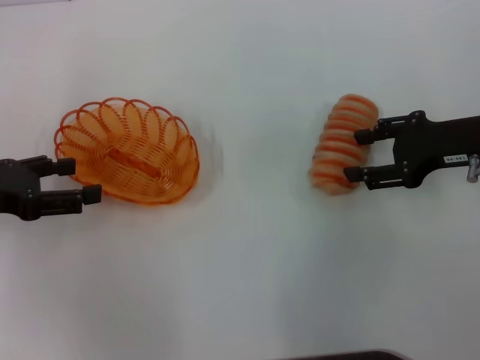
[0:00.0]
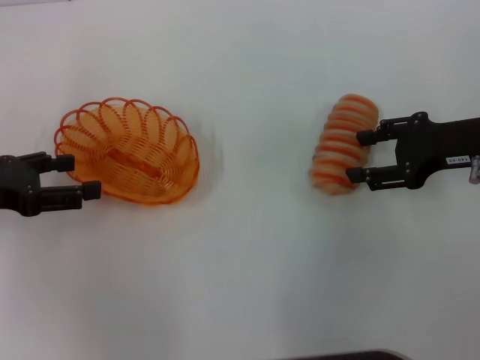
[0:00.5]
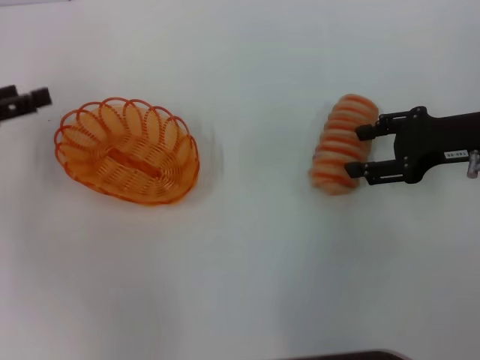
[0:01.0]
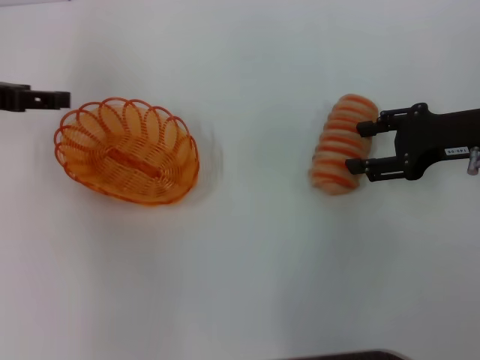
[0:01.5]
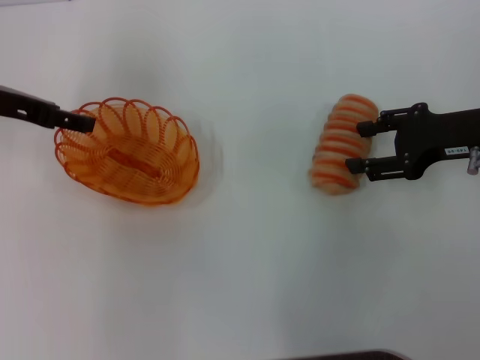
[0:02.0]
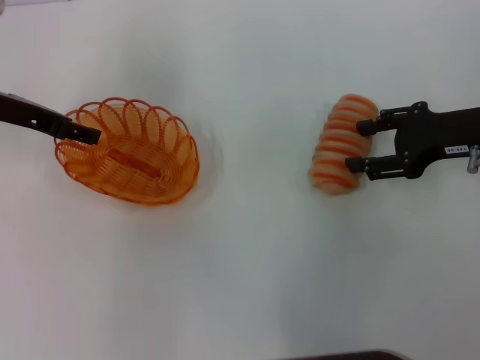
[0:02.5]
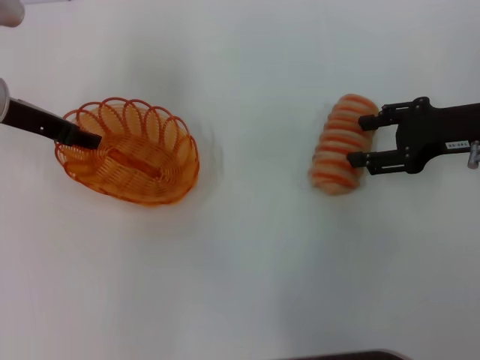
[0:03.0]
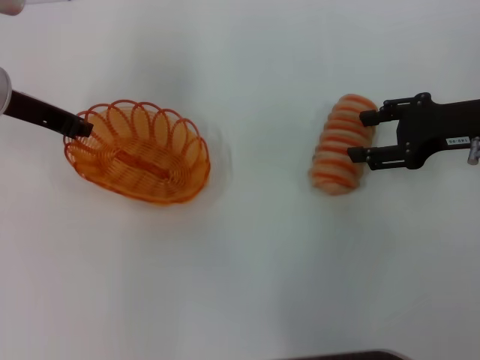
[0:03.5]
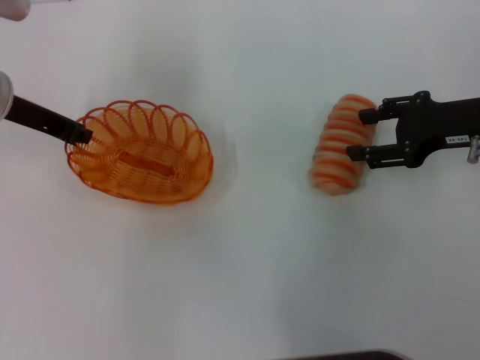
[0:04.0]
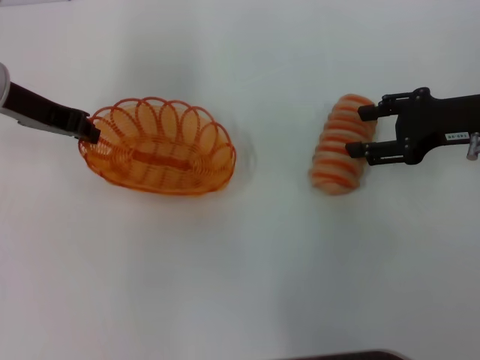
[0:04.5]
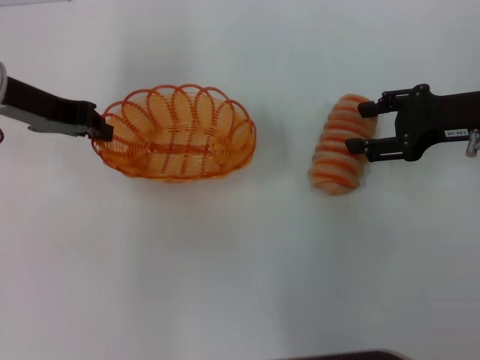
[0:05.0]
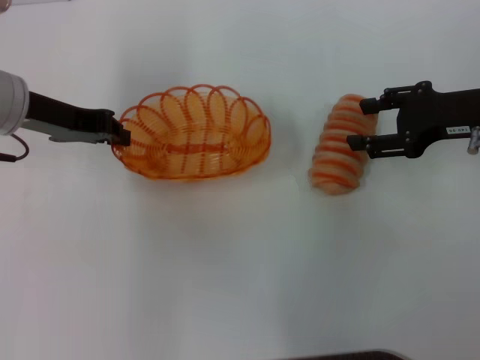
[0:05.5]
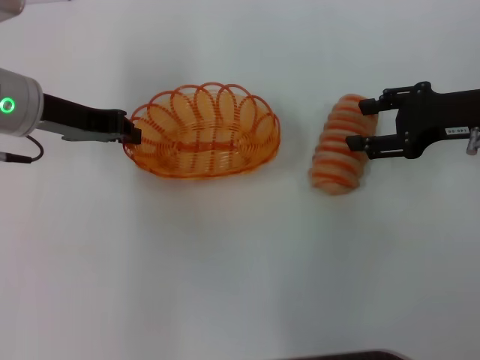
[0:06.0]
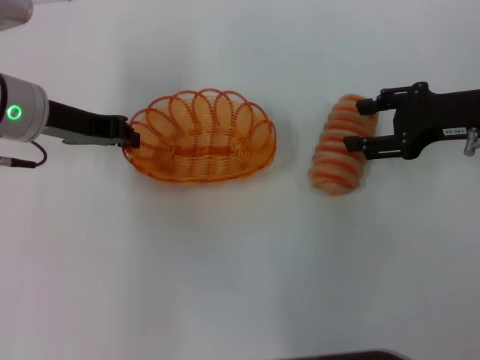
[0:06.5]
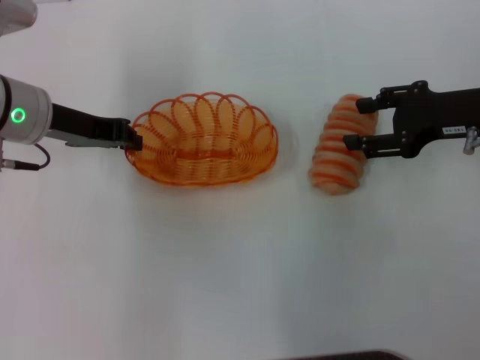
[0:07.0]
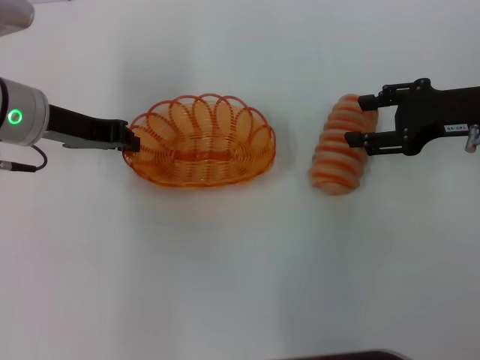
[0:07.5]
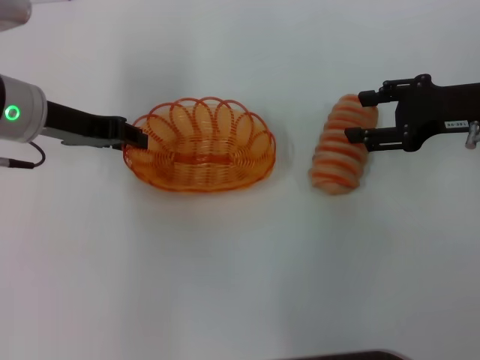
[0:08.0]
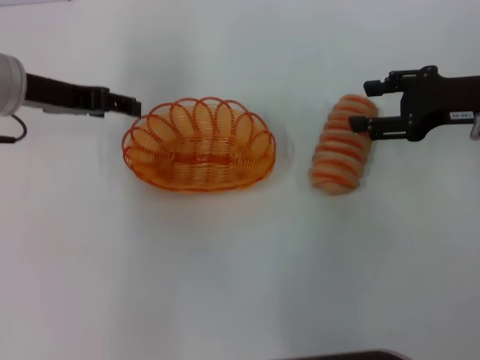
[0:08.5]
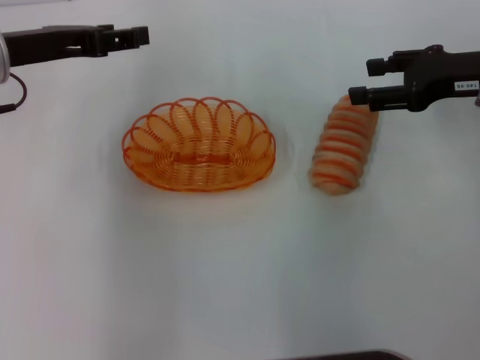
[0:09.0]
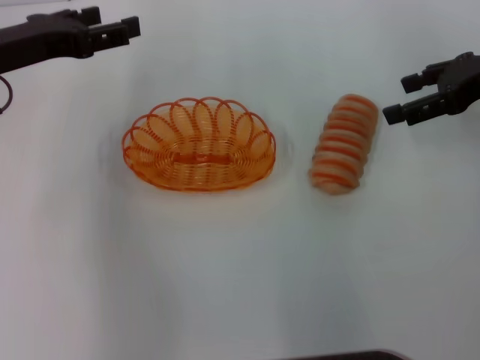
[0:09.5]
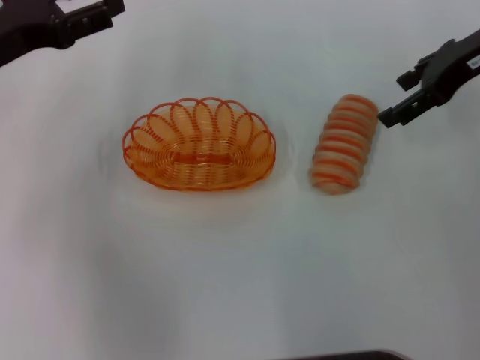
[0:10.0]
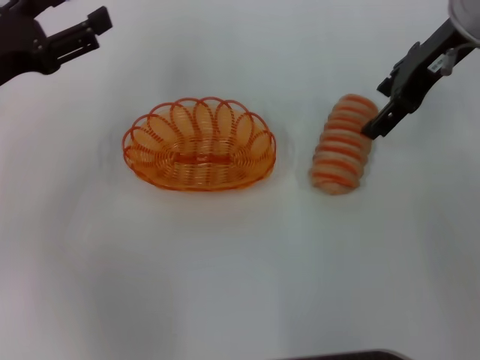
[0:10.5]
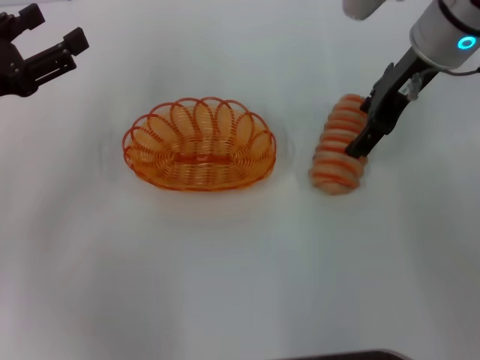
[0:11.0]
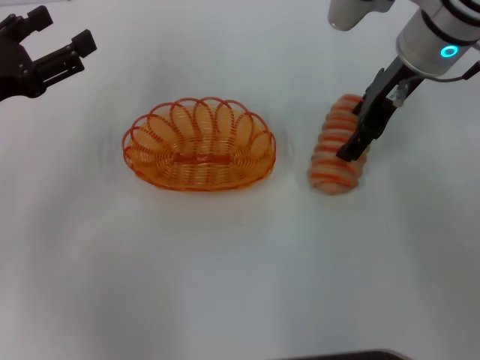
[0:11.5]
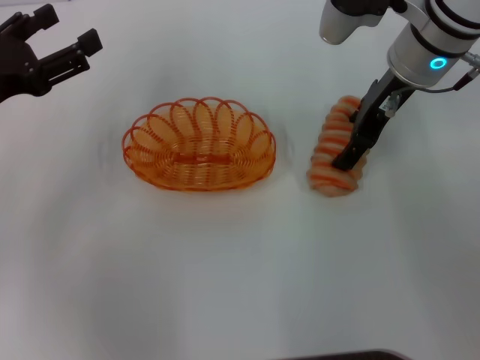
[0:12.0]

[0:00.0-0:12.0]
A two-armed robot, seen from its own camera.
Step, 0:00.0 to 0:05.0: Pick up the basket with the left gripper.
Step, 0:05.5 to 0:08.5: Place the basket in the center of view with the left gripper.
0:00.0 to 0:02.0: The left gripper moves forward, approximately 10 cm.
0:02.0 to 0:04.0: The left gripper closes its fingers.
0:06.0 to 0:08.0: Both grippers stay put.
0:08.0 to 0:10.0: The right gripper goes approximately 10 cm upward and forward, while the left gripper ends up approximately 5 cm from where it was, and opens up.
0:10.0 to 0:12.0: The right gripper moves to the left, roughly 10 cm, while the left gripper shifts by about 5 cm.

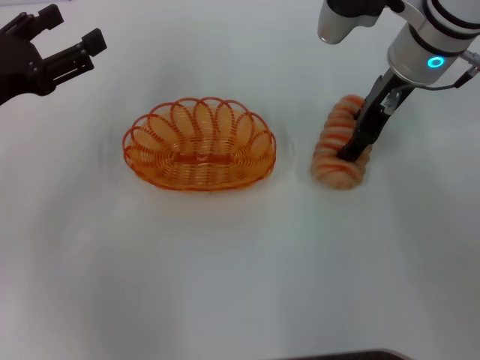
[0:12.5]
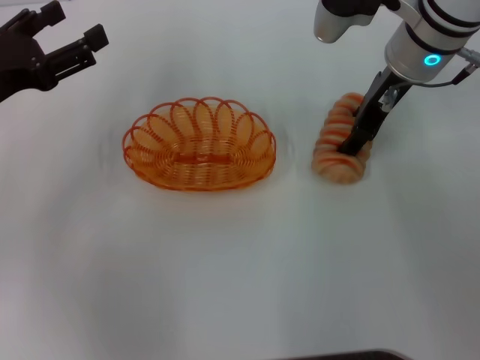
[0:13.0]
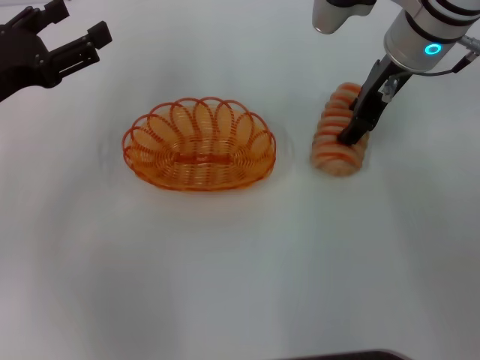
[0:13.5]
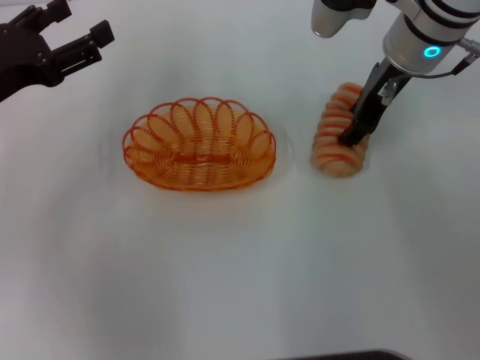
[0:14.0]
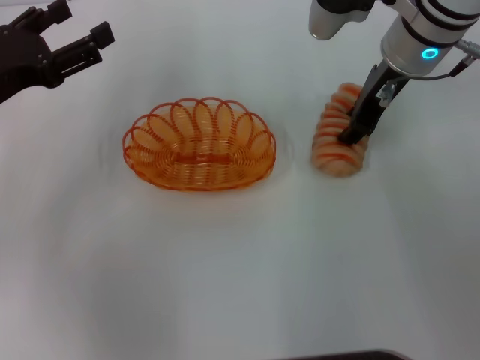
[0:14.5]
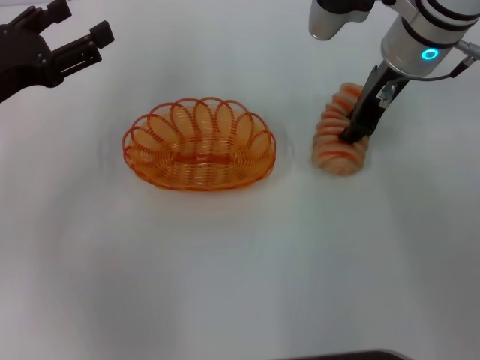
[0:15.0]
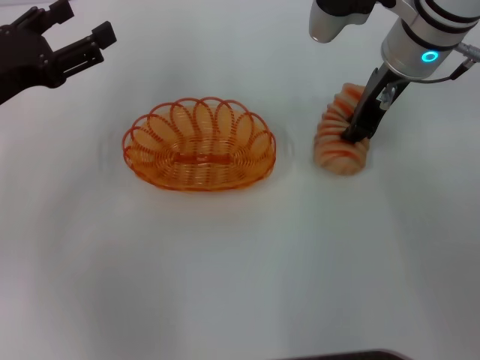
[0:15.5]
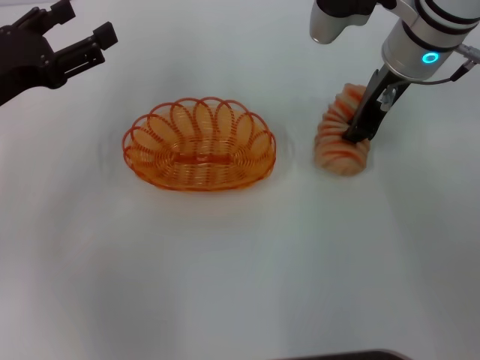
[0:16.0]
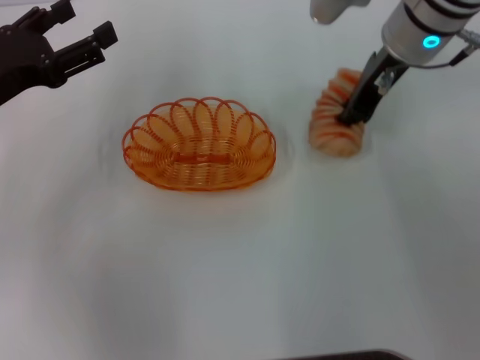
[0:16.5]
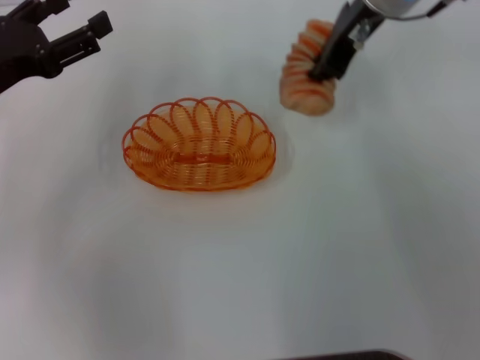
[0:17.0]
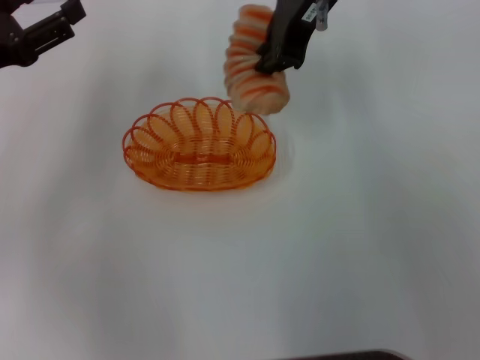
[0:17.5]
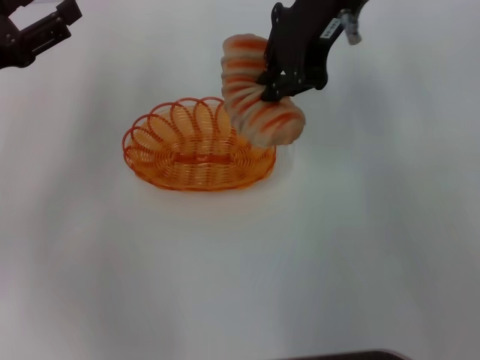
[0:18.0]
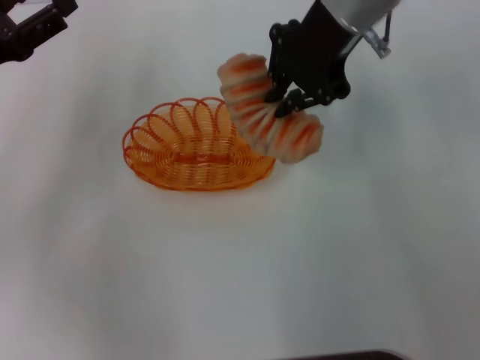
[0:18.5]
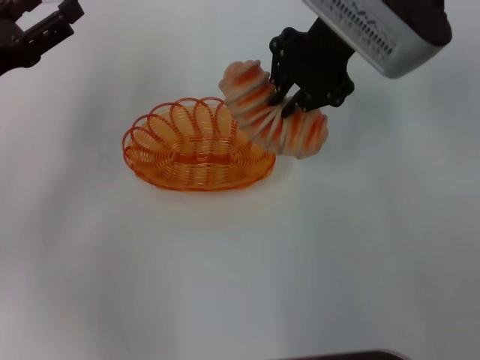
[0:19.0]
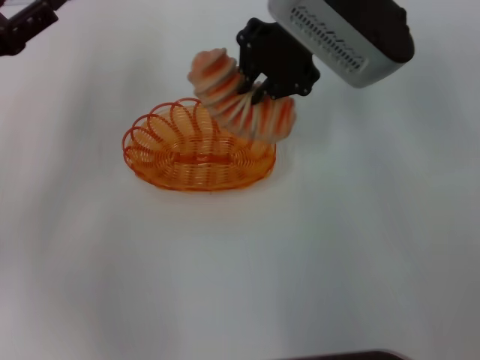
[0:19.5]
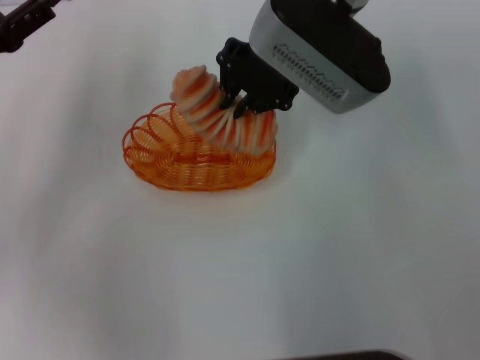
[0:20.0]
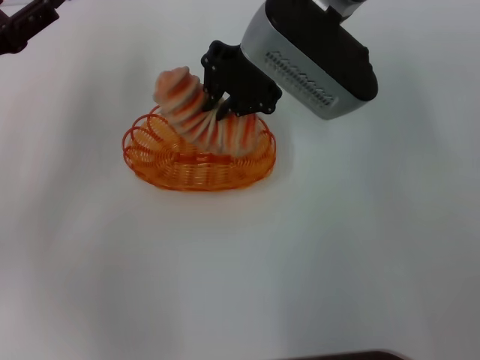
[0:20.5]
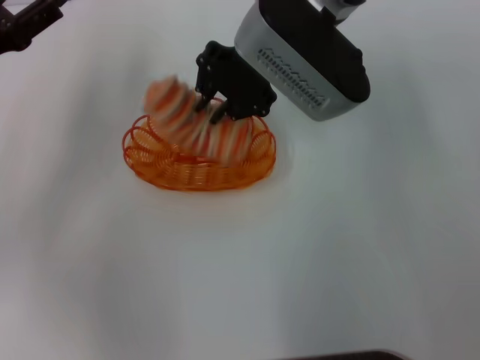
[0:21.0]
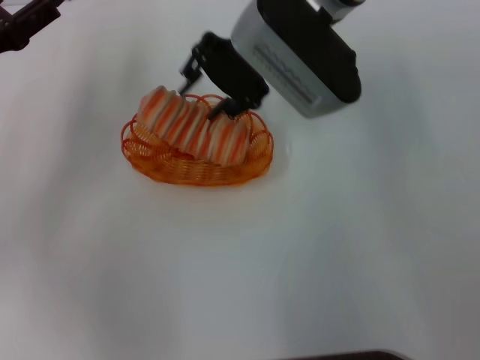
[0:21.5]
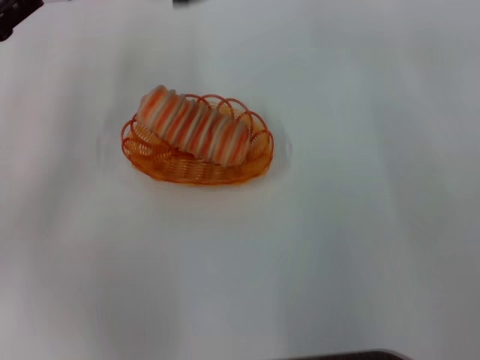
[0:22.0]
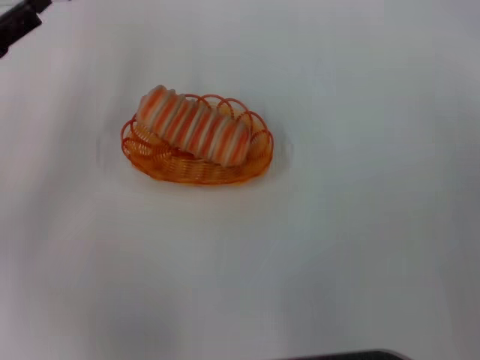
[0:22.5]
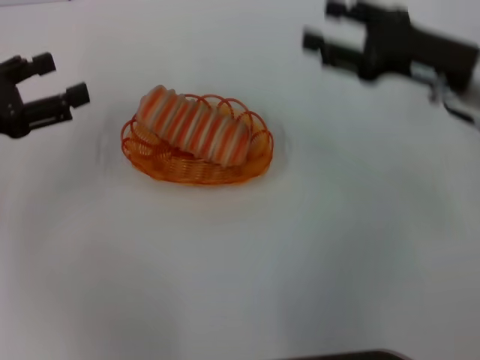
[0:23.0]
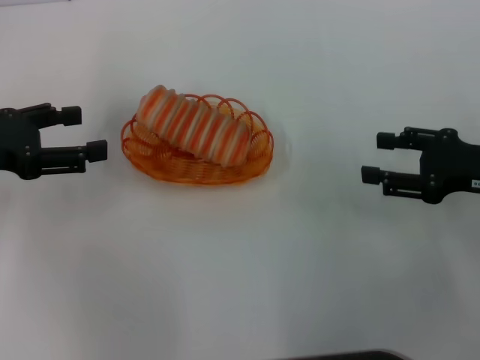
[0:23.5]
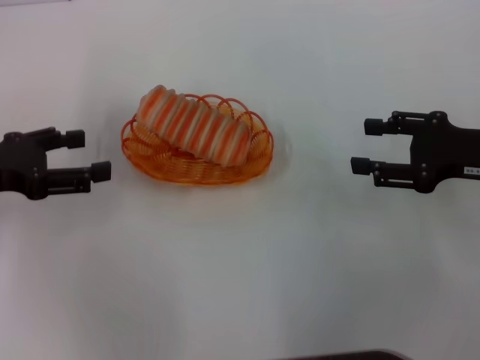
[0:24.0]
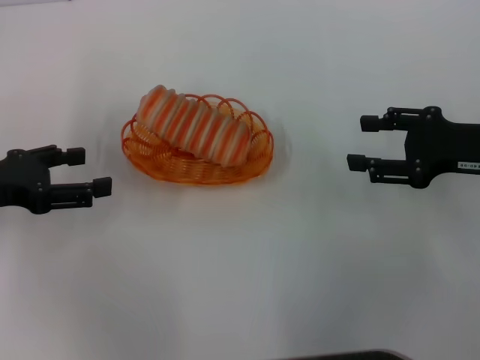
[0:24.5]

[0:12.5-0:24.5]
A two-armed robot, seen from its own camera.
Step, 0:12.5 to 0:17.0: Pick up the long bread with the right gripper.
Step, 0:17.5 to 0:21.5: Place the long bread into the basket with the right gripper.
0:12.5 to 0:14.5: The right gripper closes up.
0:14.5 to 0:16.5: The right gripper closes up.
0:16.5 to 0:18.5: The right gripper travels upward and to the left by some 10 cm.
0:18.5 to 0:20.5: The right gripper goes roughly 5 cm downward.
0:20.5 to 0:22.5: The right gripper moves to the right, roughly 15 cm, and opens up.
0:22.5 to 0:24.5: The right gripper goes roughly 20 cm backward, downward and to the right.

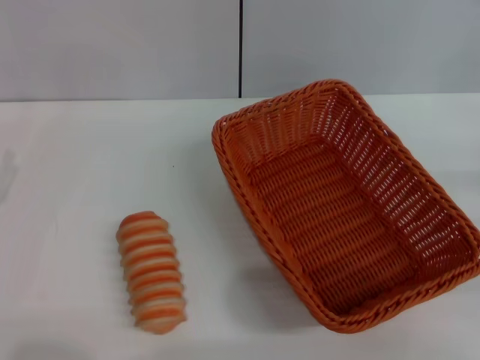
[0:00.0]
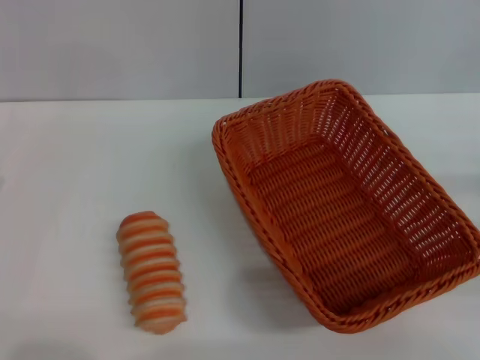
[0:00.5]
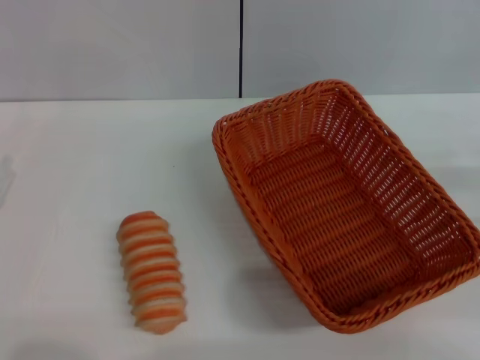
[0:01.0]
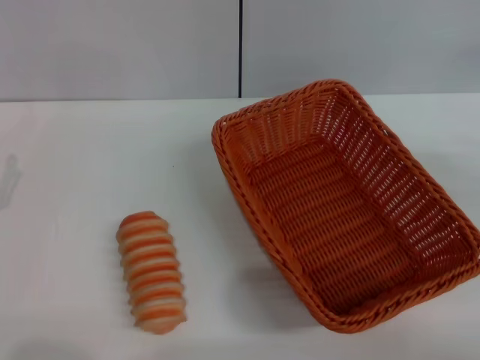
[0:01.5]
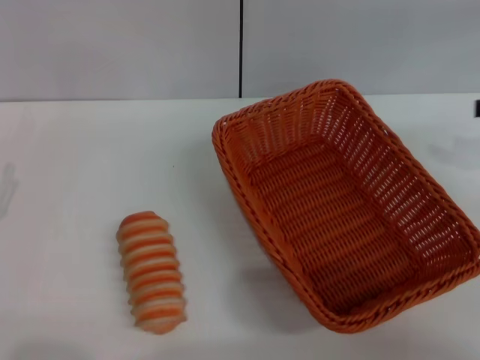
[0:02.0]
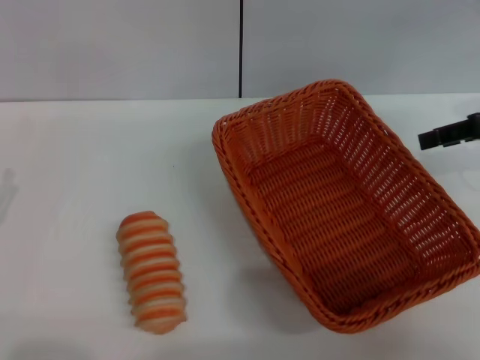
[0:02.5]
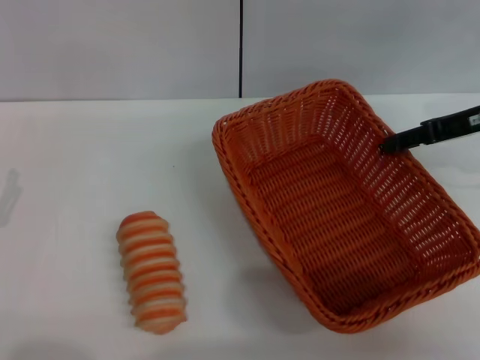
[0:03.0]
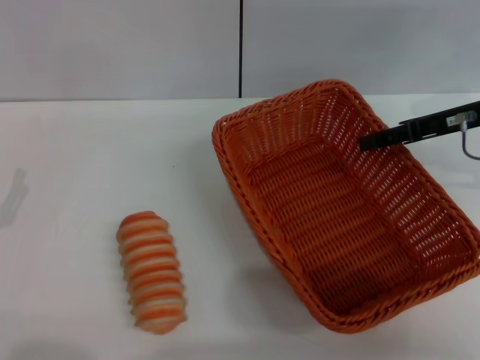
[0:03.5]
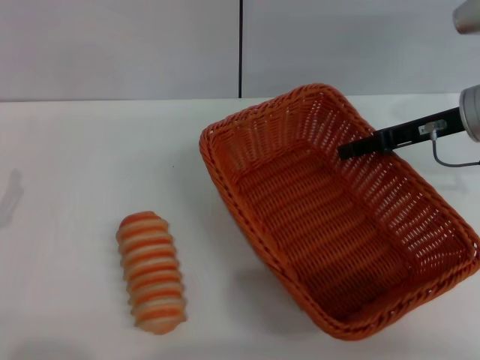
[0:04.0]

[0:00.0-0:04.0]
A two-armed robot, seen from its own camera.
0:00.0 to 0:02.0: The right gripper shifts roughly 15 cm upward and forward.
0:02.0 to 0:04.0: The right gripper travels to the left, downward and forward by roughly 15 cm.
